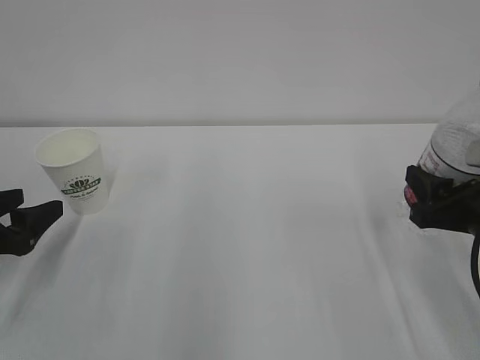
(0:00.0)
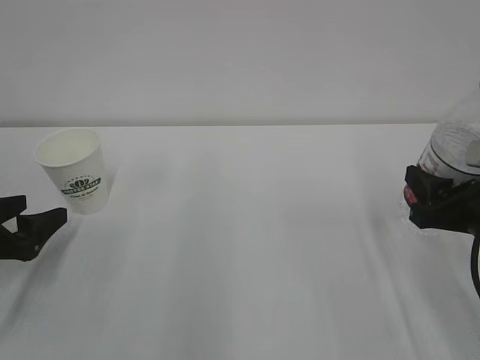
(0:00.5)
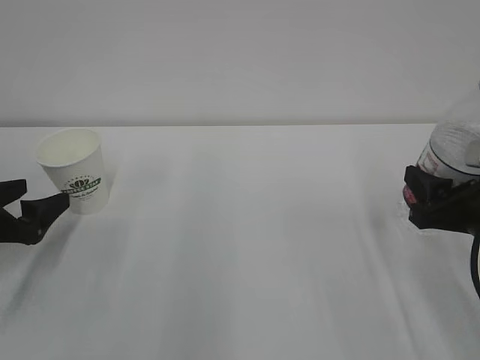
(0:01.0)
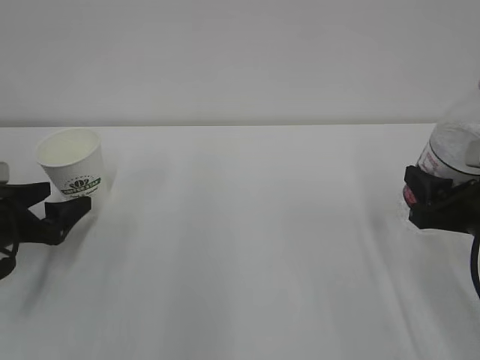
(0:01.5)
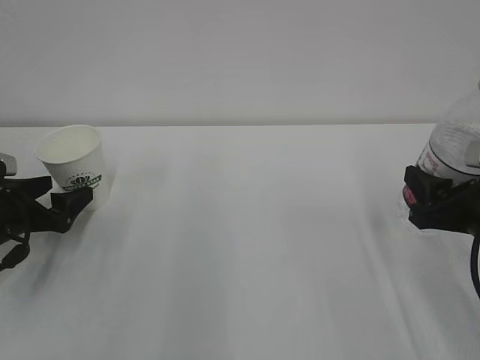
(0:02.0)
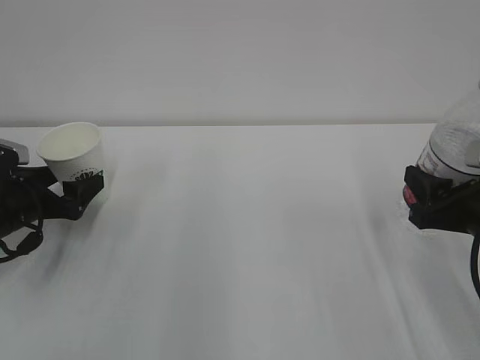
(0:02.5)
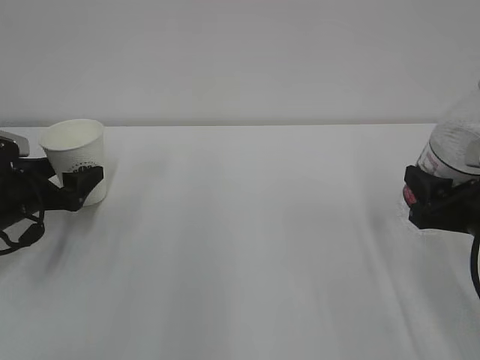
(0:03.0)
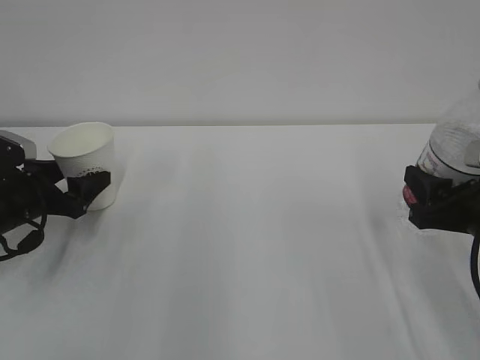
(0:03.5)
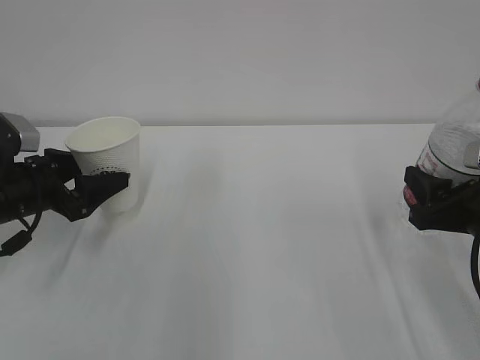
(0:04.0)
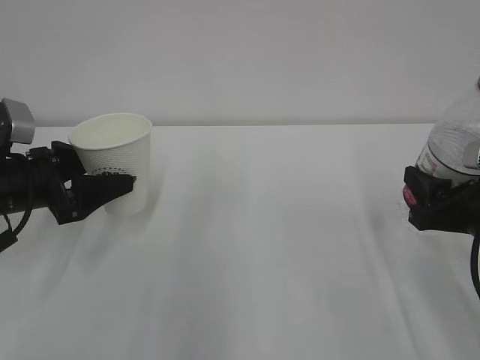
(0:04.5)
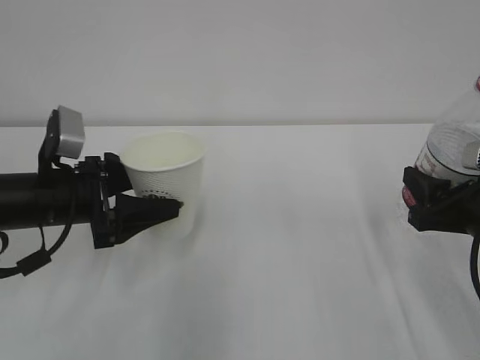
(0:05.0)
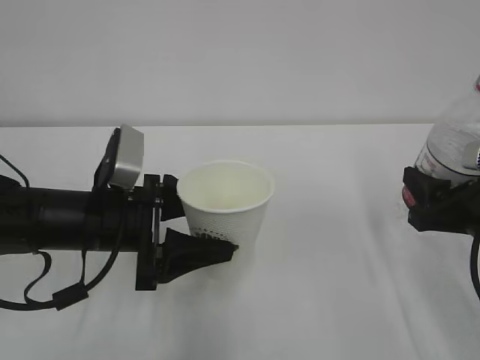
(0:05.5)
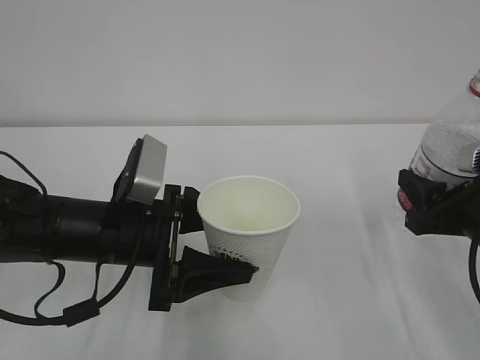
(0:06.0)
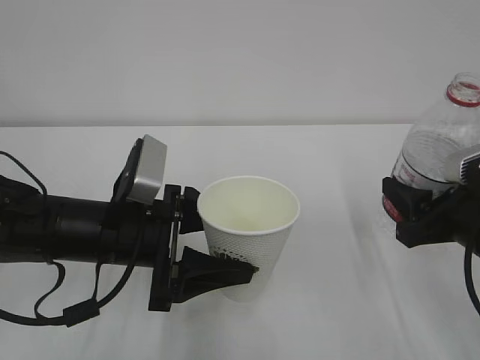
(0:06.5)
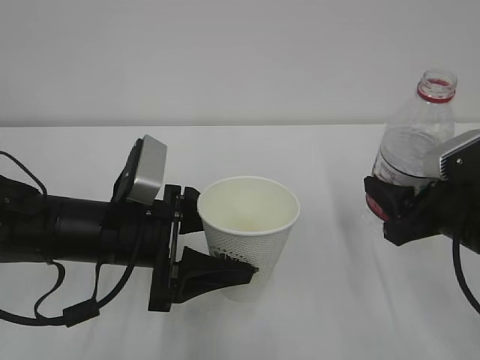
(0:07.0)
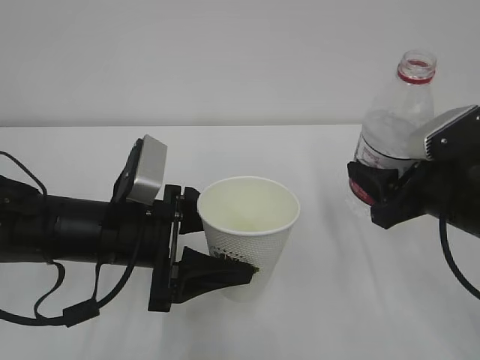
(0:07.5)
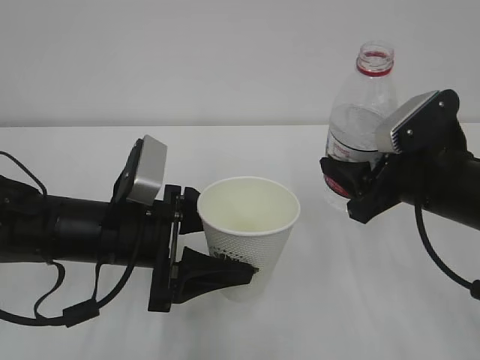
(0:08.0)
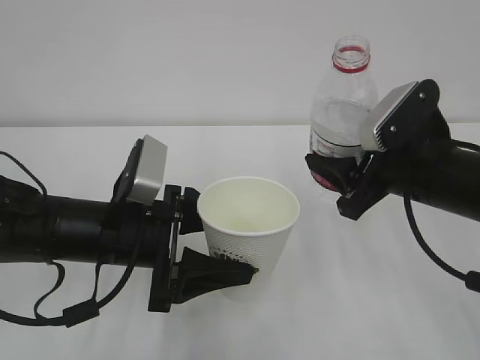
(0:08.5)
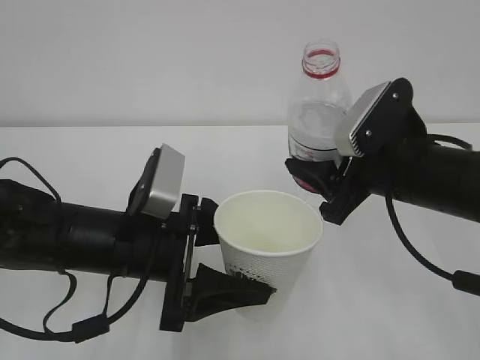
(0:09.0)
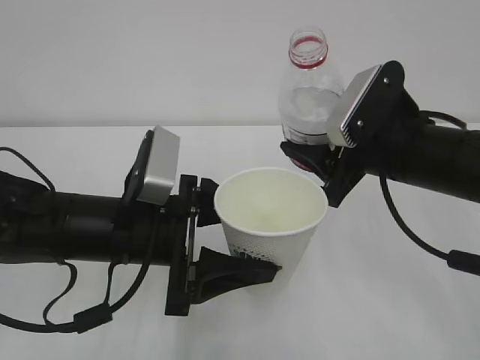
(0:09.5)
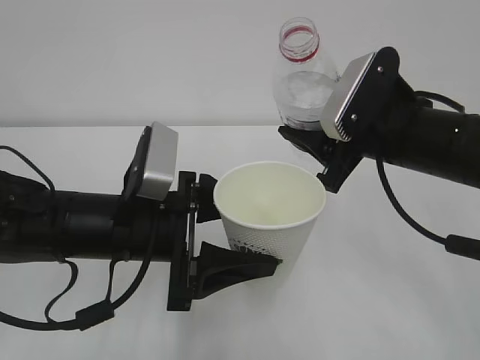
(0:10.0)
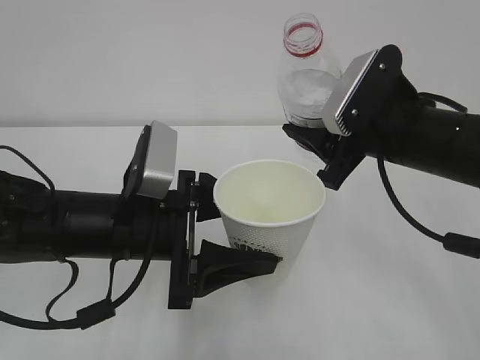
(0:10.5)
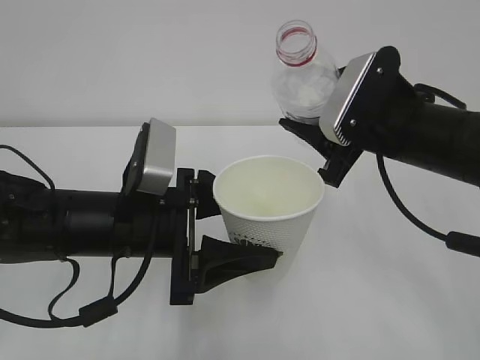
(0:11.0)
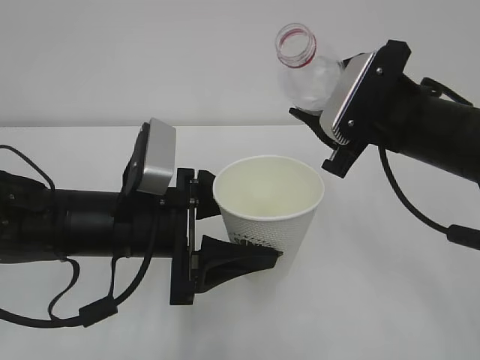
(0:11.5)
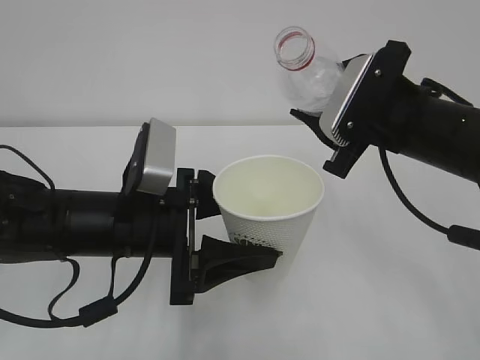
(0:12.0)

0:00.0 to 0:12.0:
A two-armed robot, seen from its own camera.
0:00.0 to 0:02.0: The left gripper shifts some 5 cm forward, and opens its fingers.
0:02.0 to 0:04.0: The left gripper ends up some 5 cm from where it was, and closes up.
0:04.0 to 0:06.0: The left gripper heads to the right and backward, covering roughly 15 cm.
0:06.0 to 0:08.0: The right gripper heads to the left, covering some 5 cm.
0:08.0 to 0:10.0: The right gripper ends up some 5 cm from where it was.
0:10.0 to 0:12.0: There are only small adjustments of the grippers.

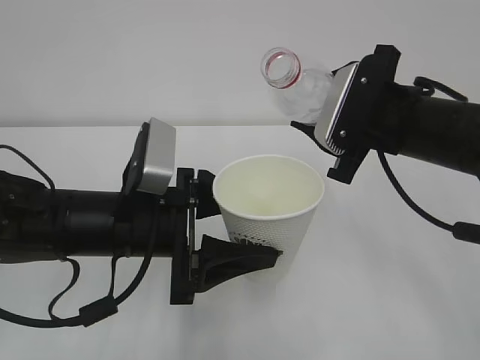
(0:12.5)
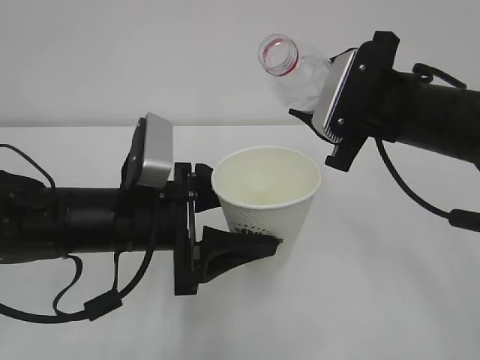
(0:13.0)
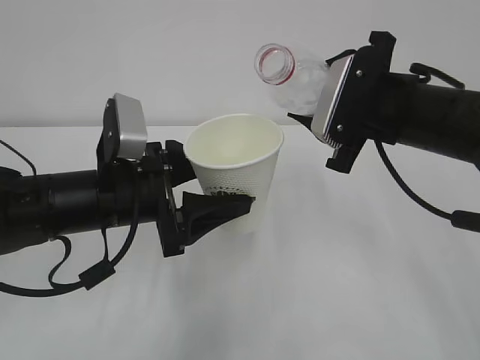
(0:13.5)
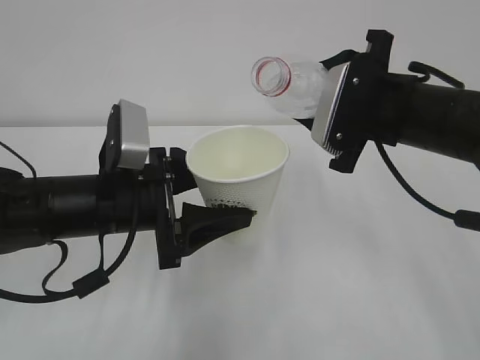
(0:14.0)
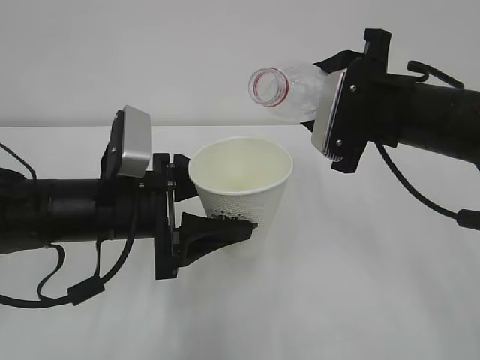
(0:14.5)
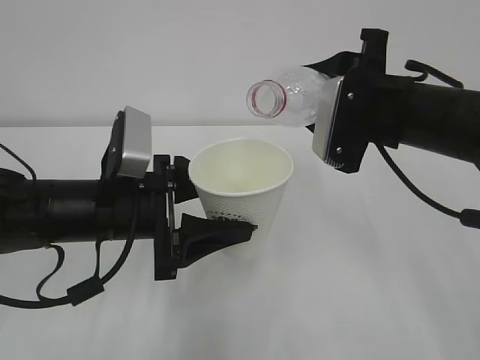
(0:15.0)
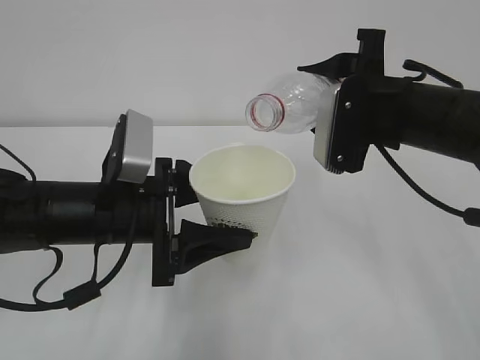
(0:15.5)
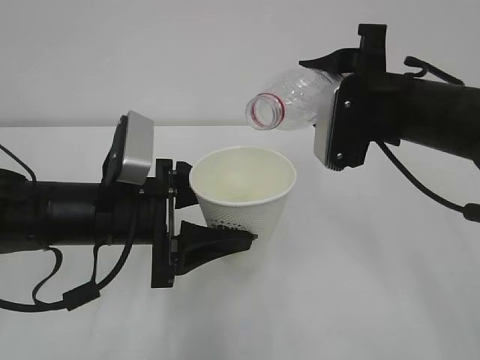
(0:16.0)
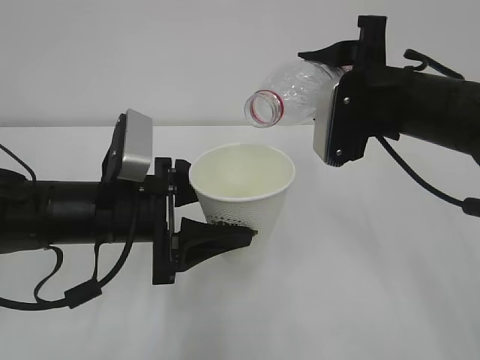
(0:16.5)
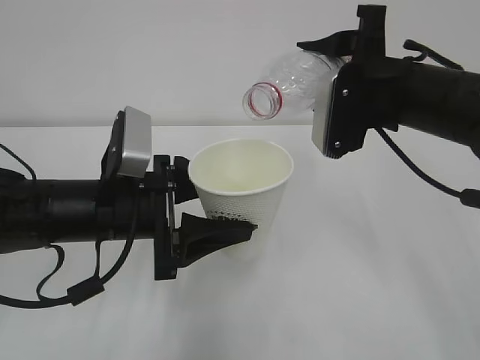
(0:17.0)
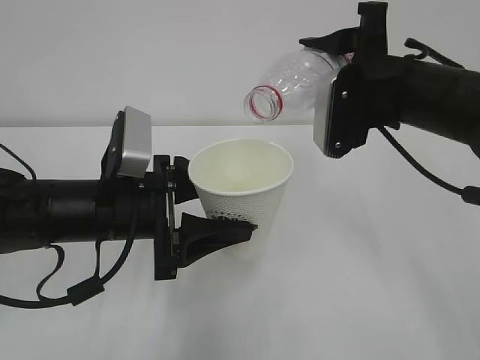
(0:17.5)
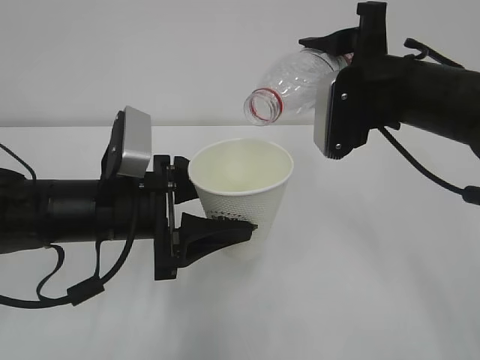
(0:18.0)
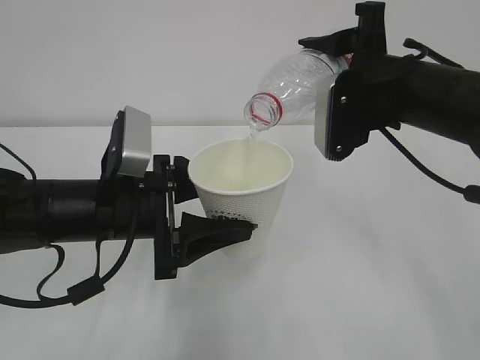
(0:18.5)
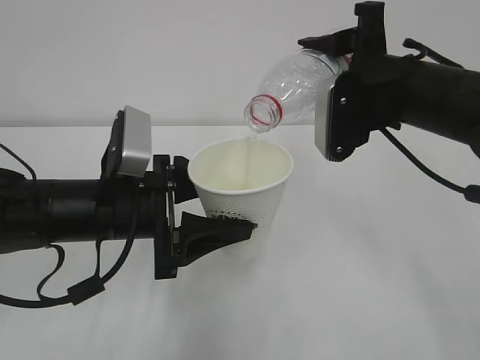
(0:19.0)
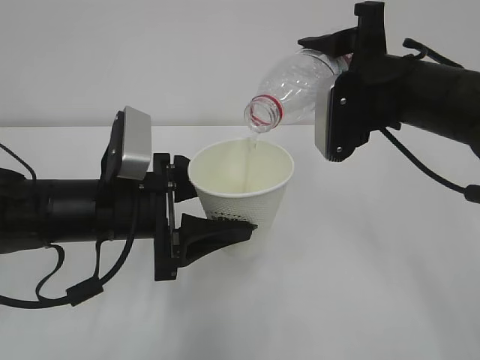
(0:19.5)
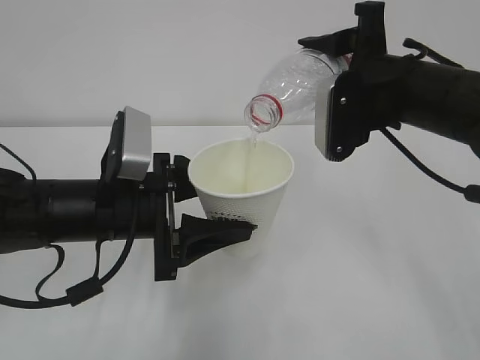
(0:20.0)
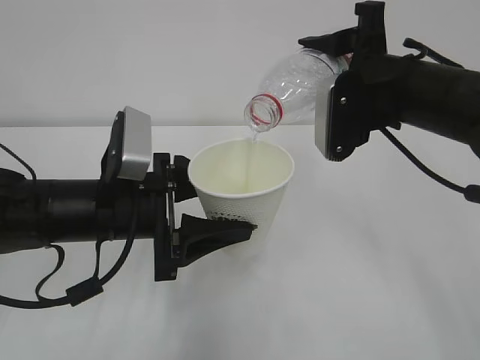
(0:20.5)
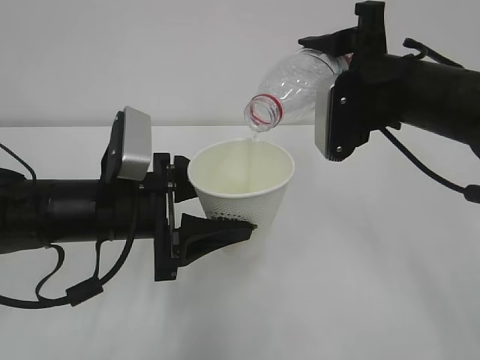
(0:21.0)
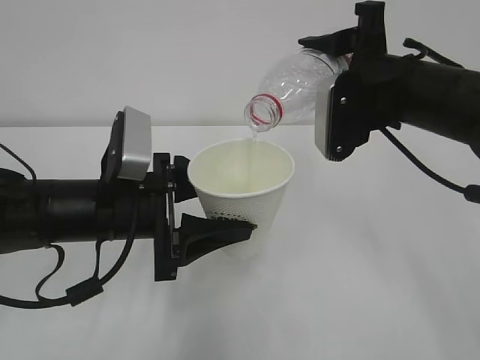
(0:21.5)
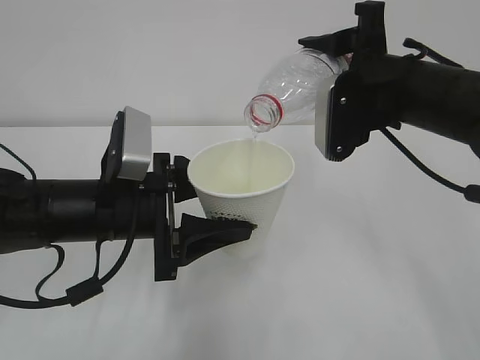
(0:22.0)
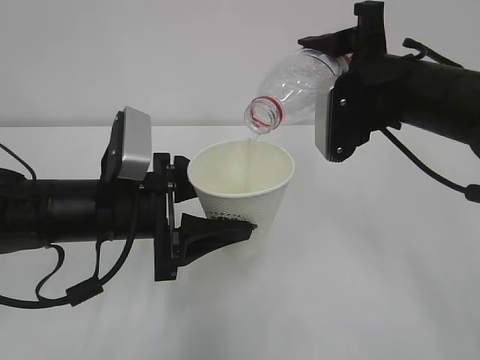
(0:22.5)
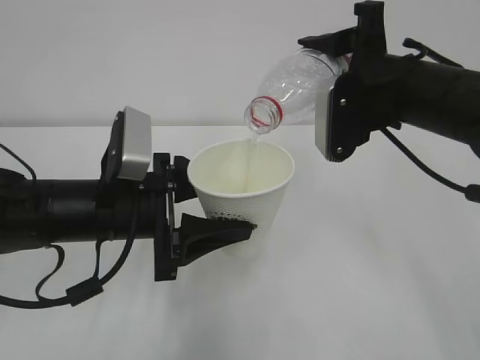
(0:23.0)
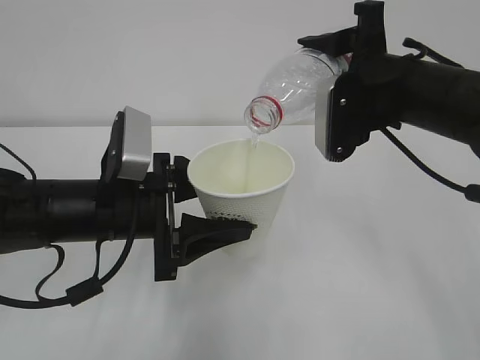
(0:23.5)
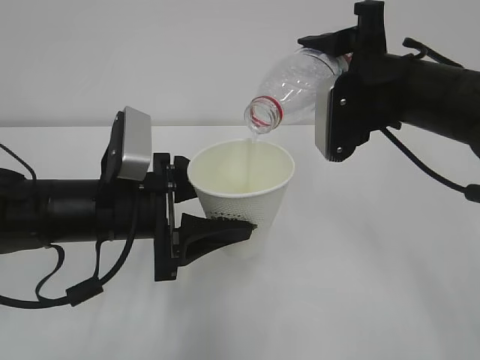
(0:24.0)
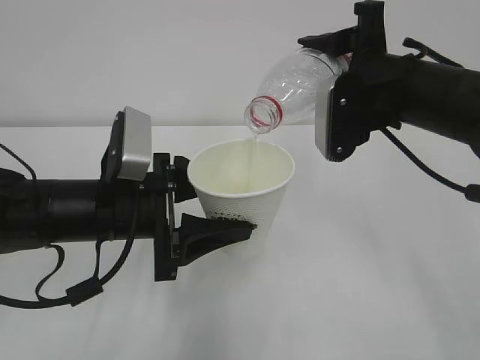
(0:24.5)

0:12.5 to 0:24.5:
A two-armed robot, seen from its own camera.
0:14.5 to 0:16.5: The grippers make only small movements.
0:16.5 to 0:18.5: The grippers make only small movements.
0:18.5 to 0:24.5: Both grippers stay put.

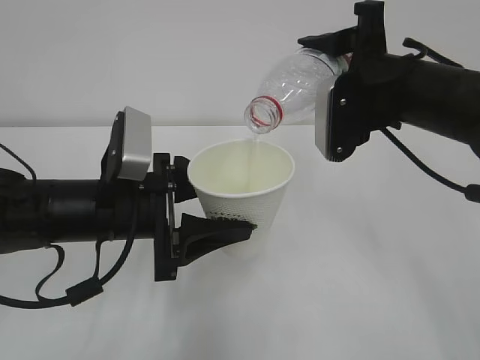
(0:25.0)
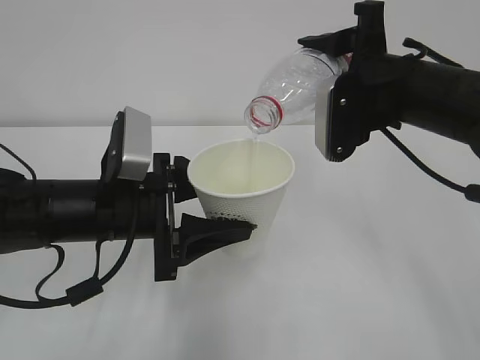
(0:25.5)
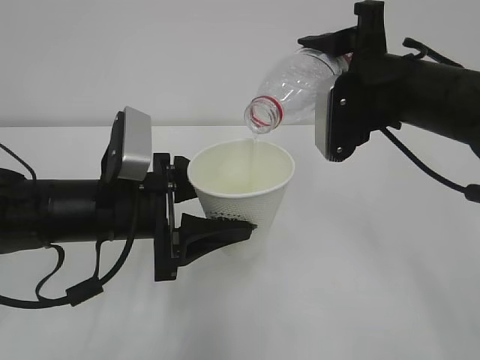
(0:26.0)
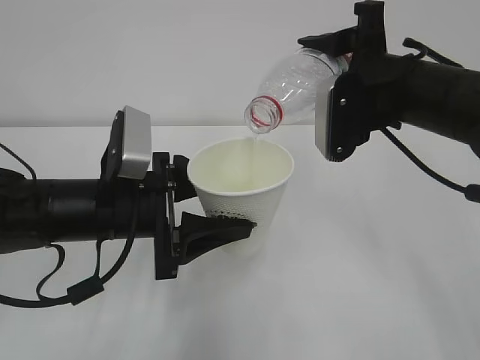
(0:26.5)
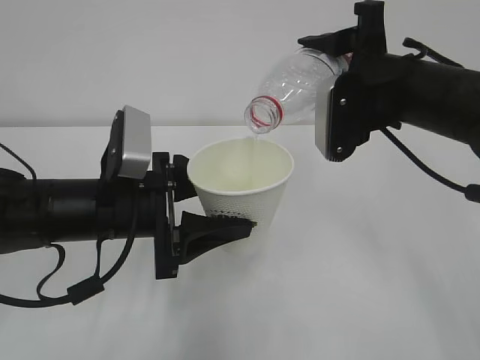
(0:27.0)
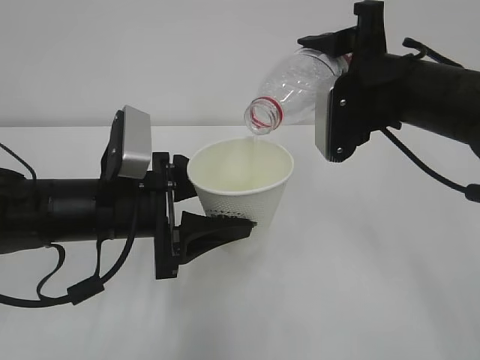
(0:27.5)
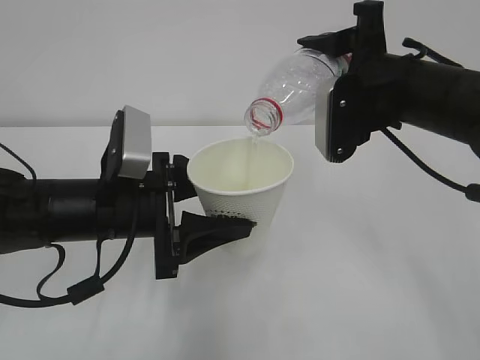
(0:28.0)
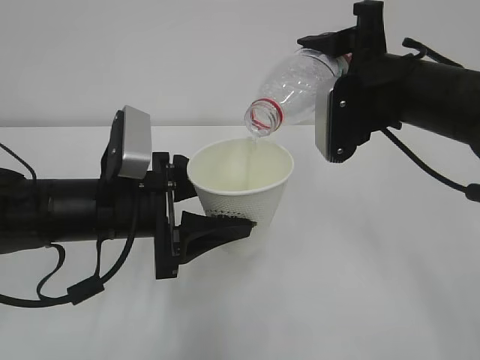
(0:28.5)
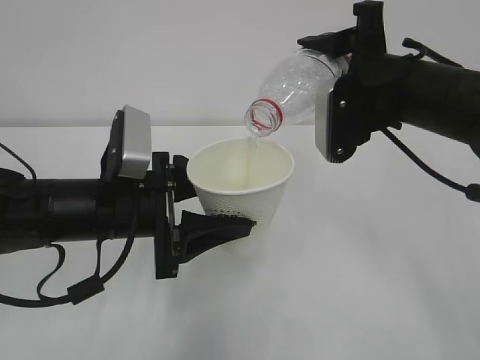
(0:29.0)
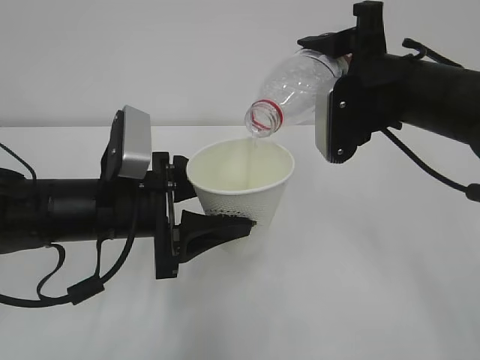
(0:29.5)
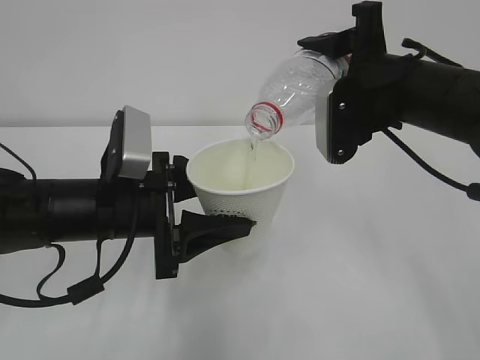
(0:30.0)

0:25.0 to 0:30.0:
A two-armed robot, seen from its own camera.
0:25.0 to 0:30.0: Both grippers stay about where they are.